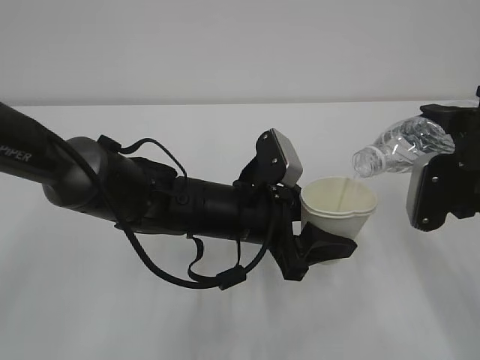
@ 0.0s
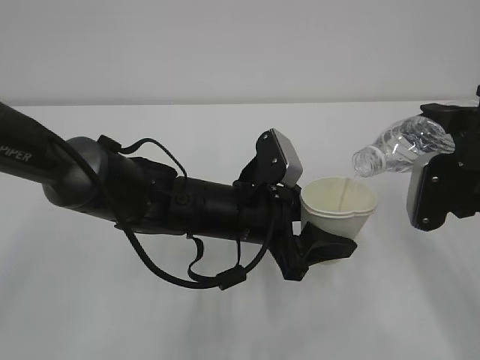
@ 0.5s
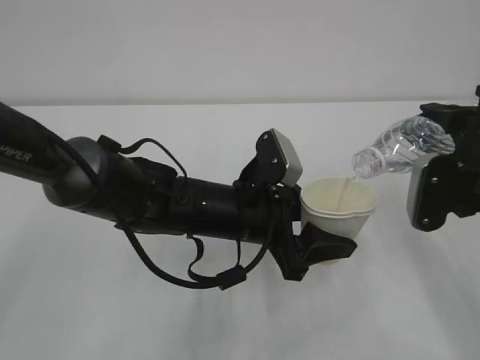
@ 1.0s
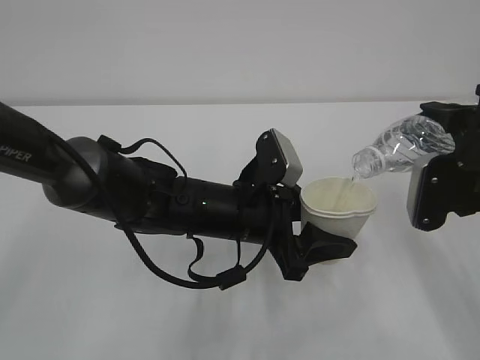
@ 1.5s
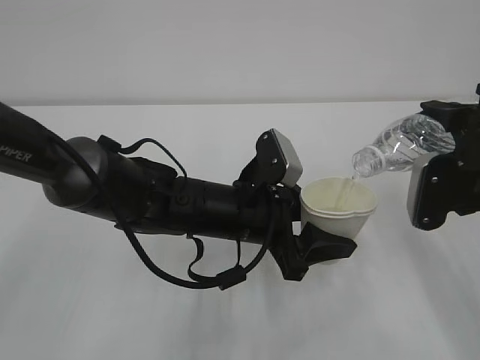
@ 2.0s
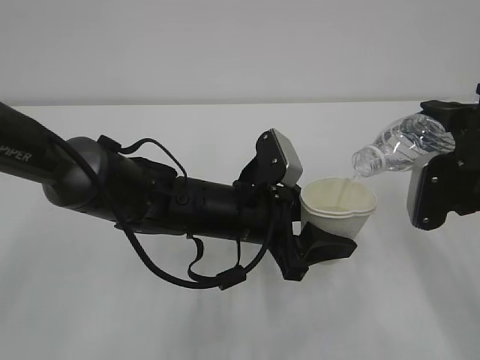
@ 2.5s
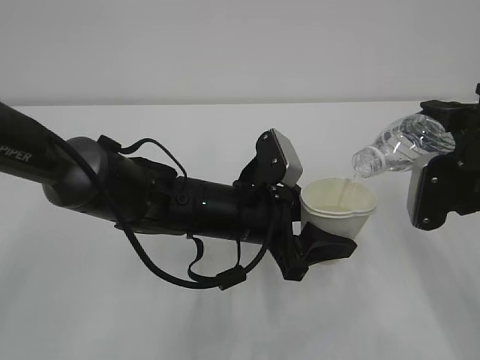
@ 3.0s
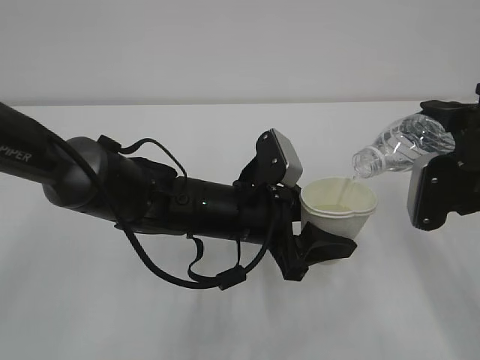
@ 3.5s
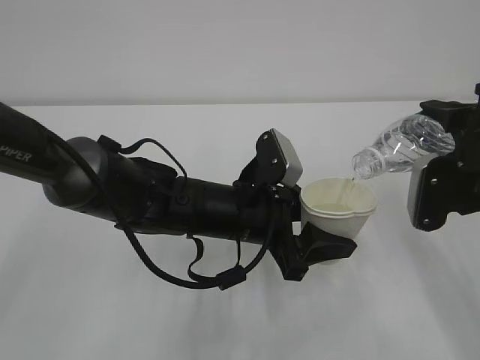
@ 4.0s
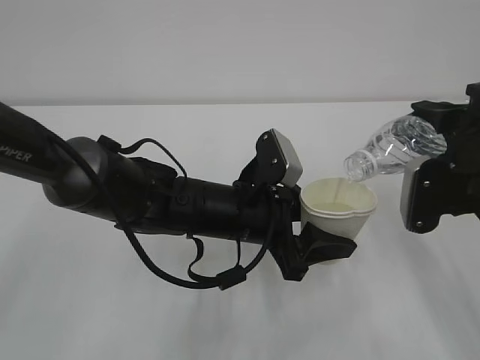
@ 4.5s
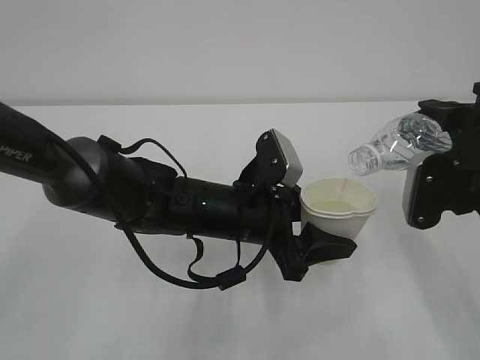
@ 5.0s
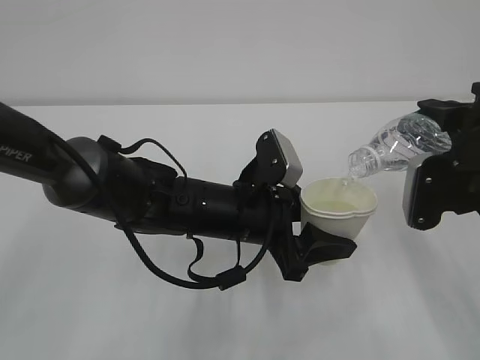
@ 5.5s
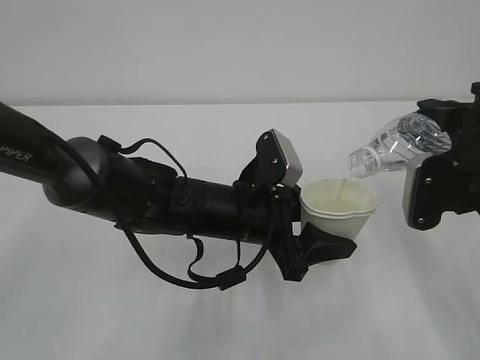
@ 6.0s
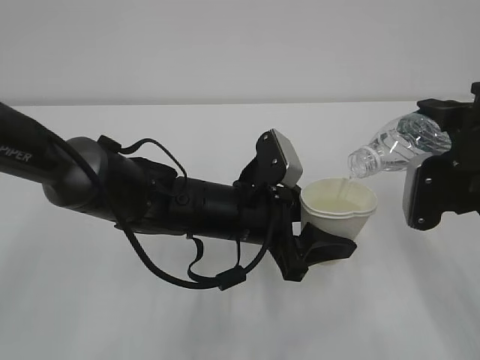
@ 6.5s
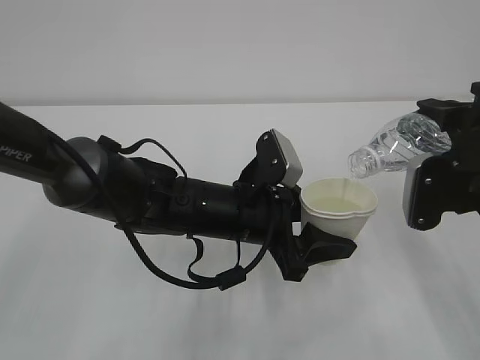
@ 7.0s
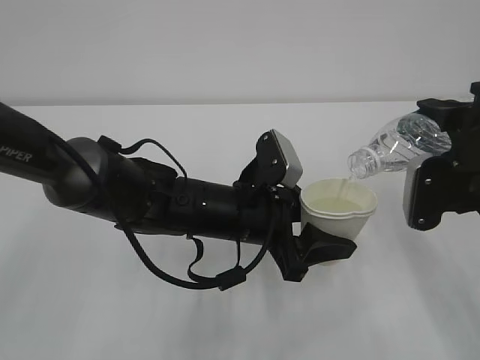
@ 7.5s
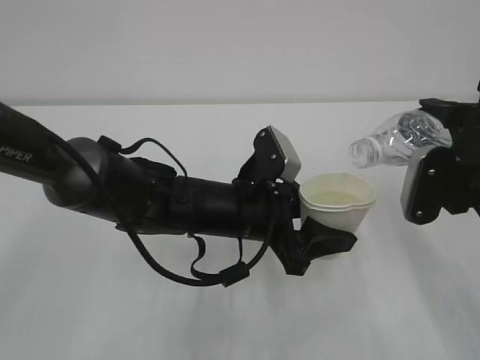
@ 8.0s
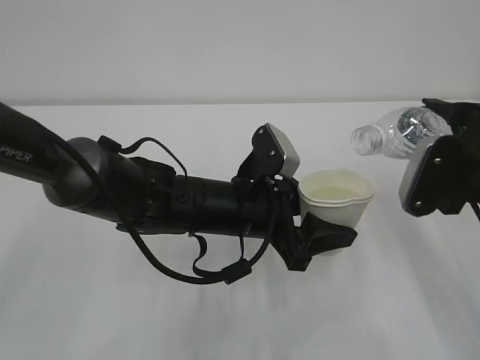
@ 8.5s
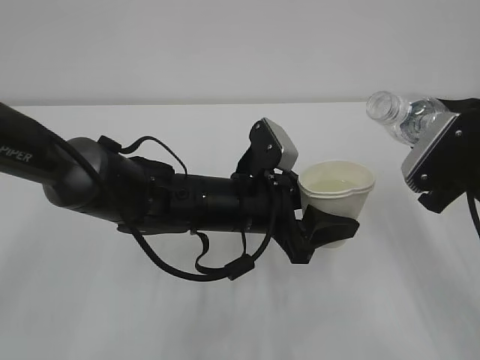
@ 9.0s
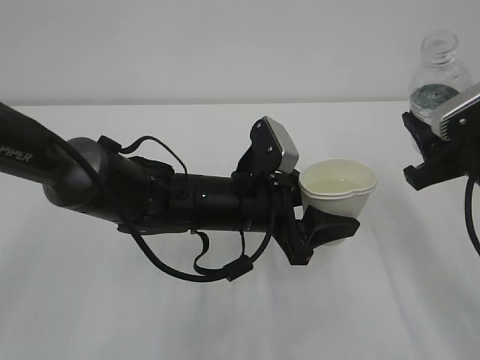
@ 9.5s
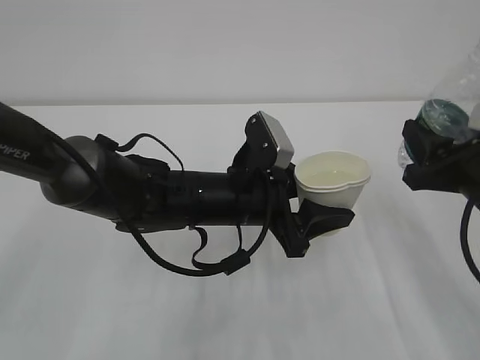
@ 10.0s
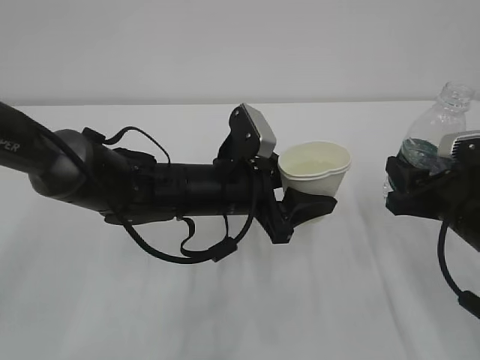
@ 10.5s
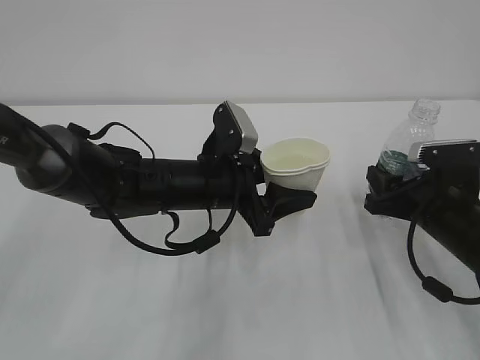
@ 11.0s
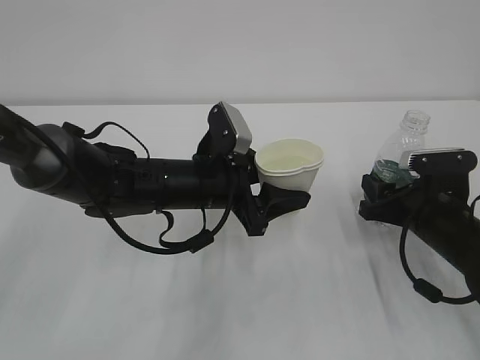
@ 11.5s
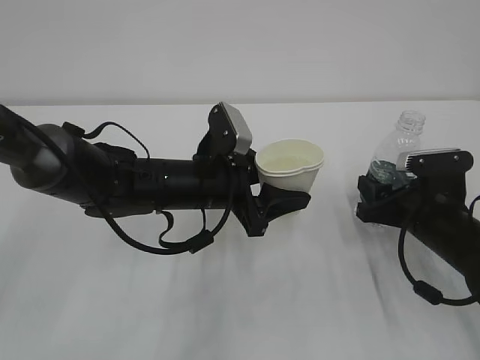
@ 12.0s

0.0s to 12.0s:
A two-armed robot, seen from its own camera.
0.0s to 6.0s: Both grippers stay put.
6.0s to 8.0s: The grippers stay close to where they were, moving slightly.
10.0s to 12.0s: The left gripper moves roughly 5 cm, while the right gripper goes approximately 10 cm downward and forward.

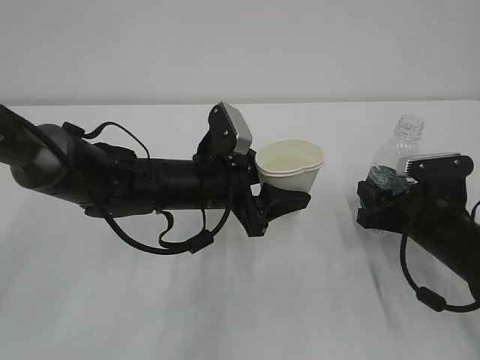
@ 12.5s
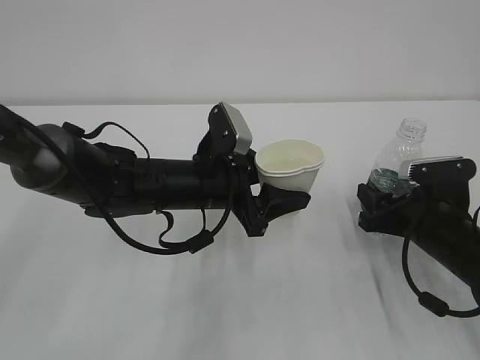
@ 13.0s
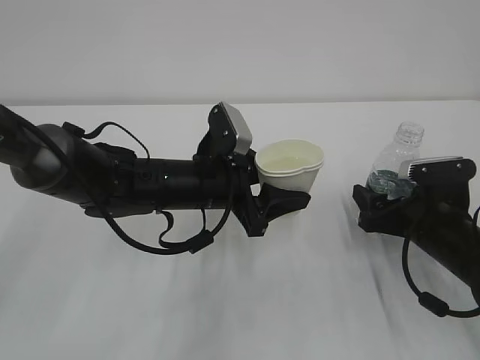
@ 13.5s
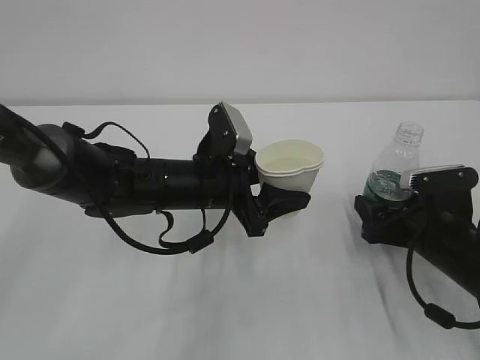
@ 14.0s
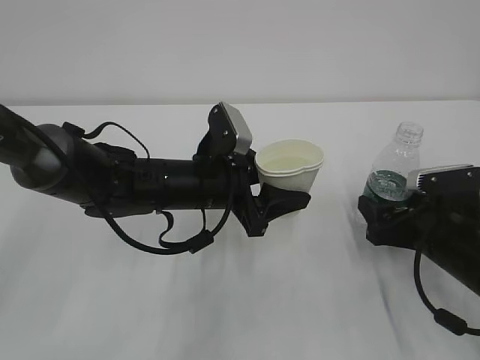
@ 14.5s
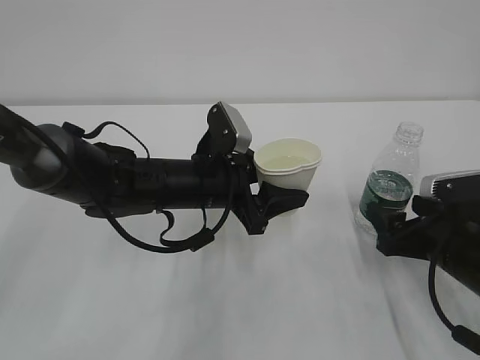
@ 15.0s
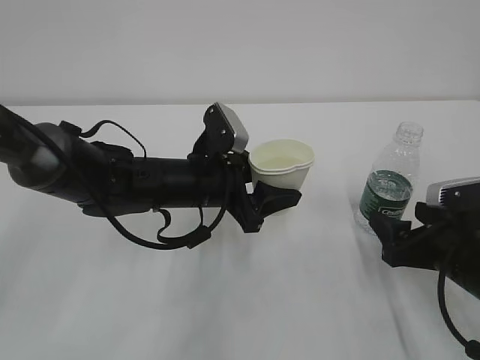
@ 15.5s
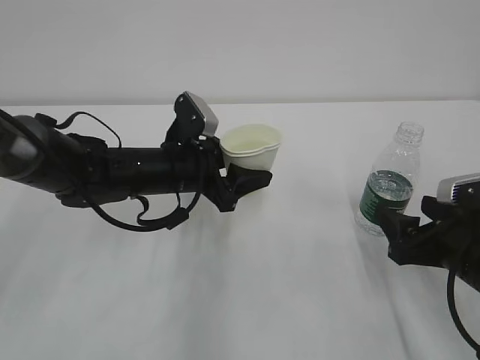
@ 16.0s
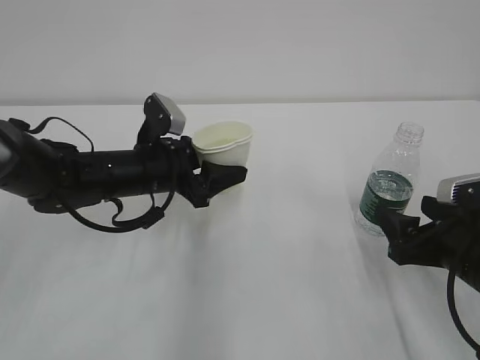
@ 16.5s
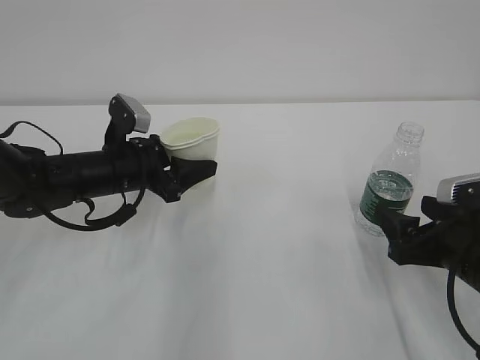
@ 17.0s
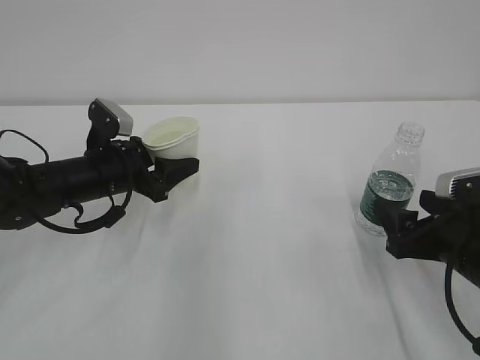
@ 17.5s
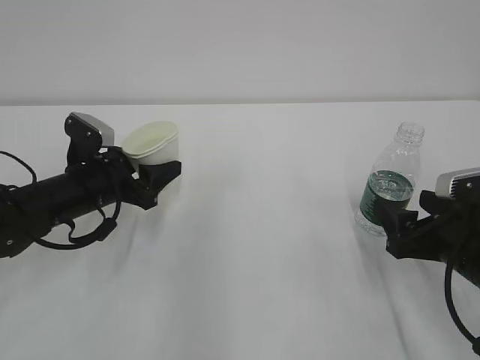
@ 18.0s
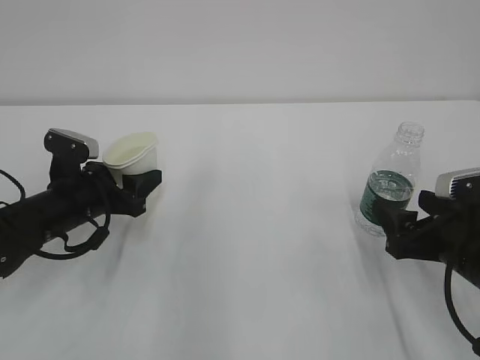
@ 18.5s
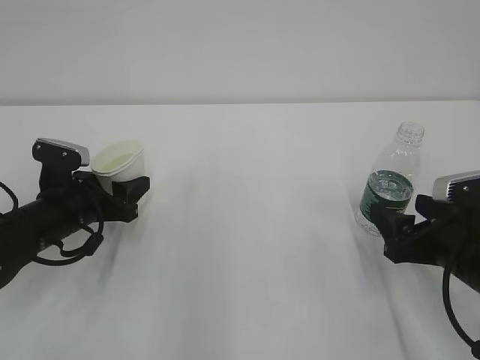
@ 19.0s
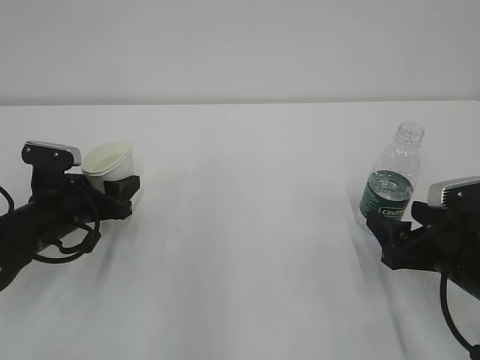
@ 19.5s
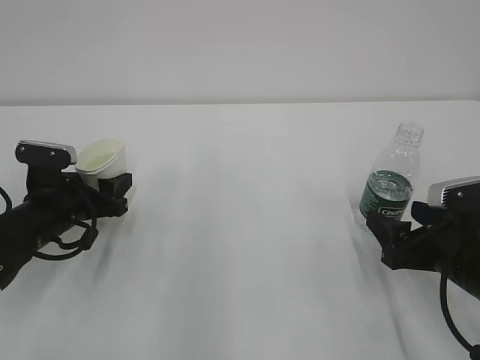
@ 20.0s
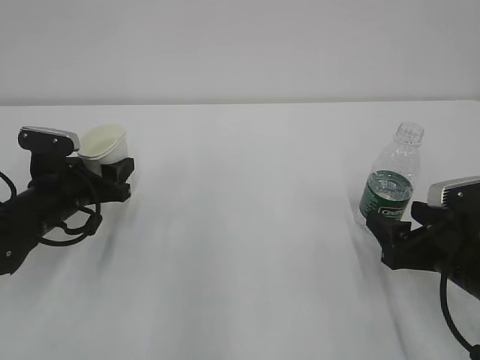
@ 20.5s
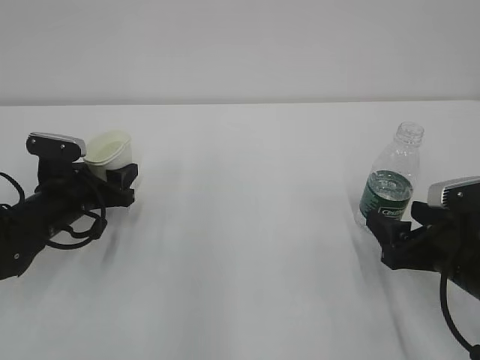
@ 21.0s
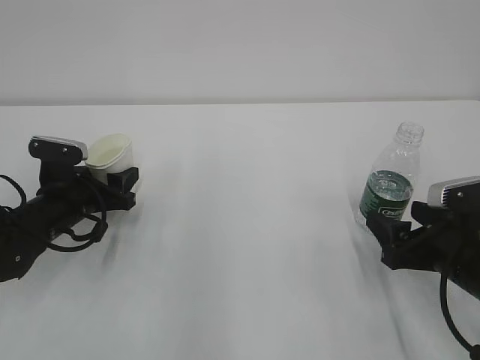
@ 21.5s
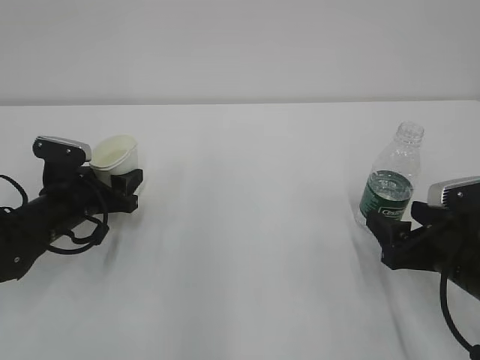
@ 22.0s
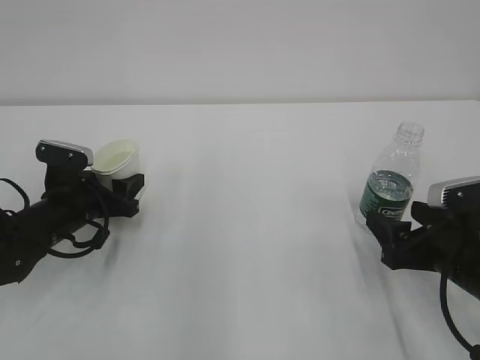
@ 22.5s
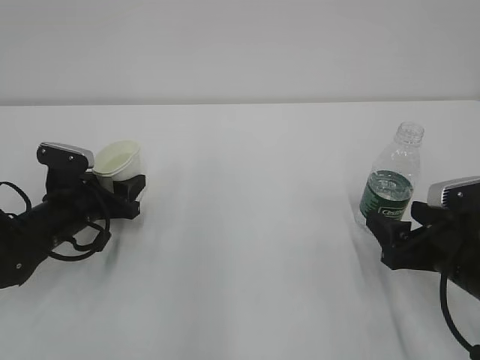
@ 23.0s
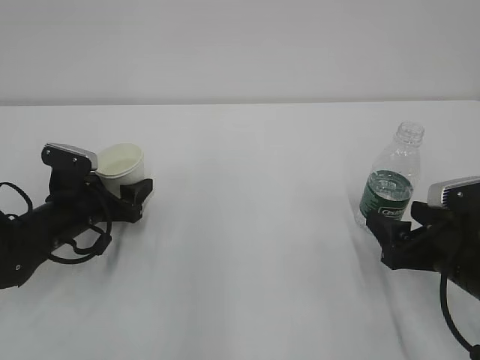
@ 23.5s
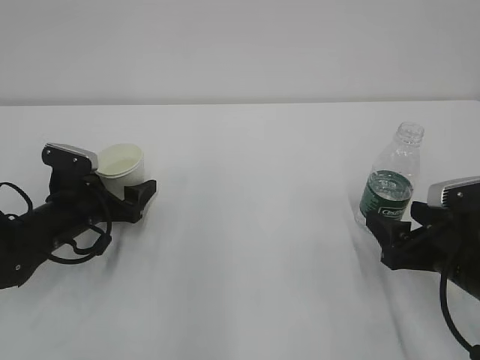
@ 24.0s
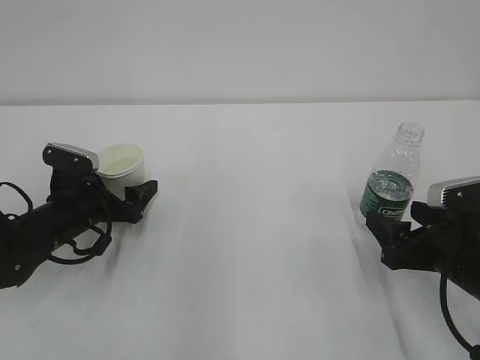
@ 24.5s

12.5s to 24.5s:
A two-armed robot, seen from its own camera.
12.5s to 14.5s: The right gripper opens up.
14.5s to 16.5s: The right gripper changes place by some 5 cm. The left gripper shifts some 10 cm to the left.
16.5s to 18.5s: The left gripper is displaced to the left by some 10 cm.
18.5s to 22.5s: The grippers stay close to where they were, moving slightly.
22.5s to 24.5s: The left gripper opens.

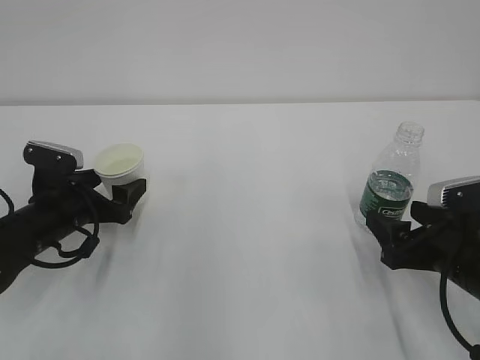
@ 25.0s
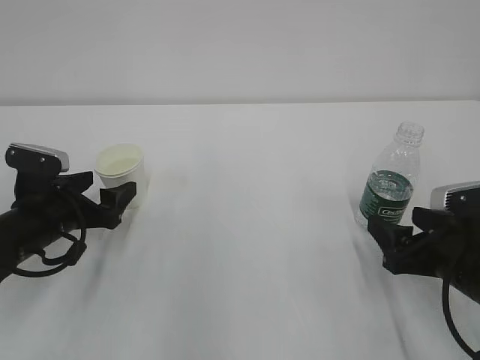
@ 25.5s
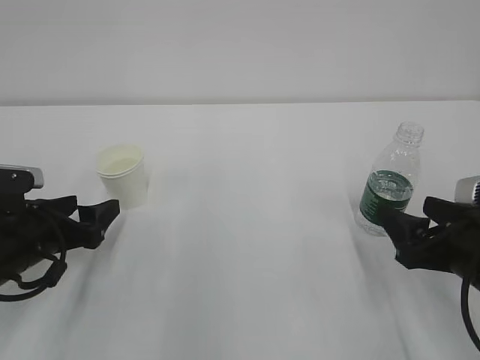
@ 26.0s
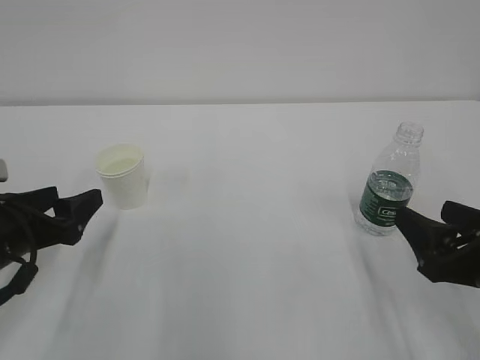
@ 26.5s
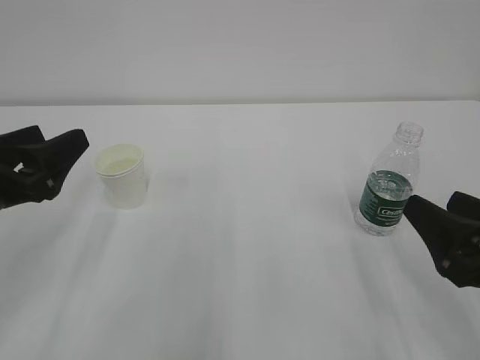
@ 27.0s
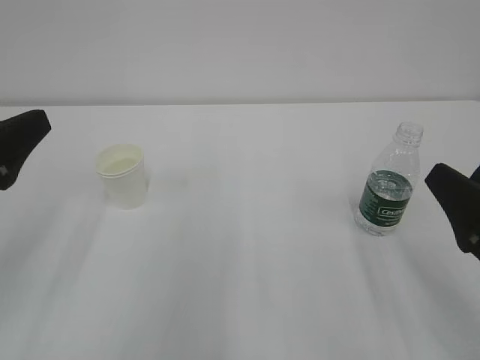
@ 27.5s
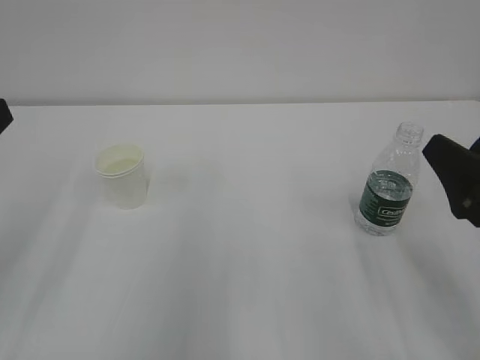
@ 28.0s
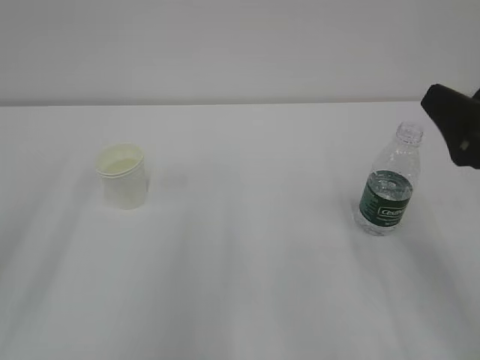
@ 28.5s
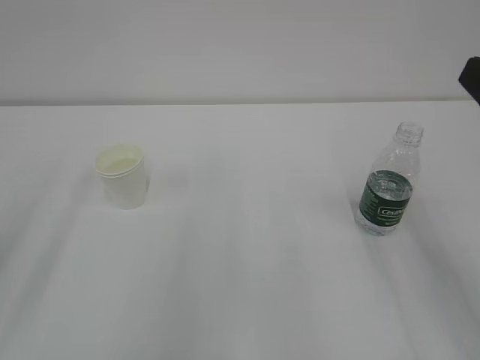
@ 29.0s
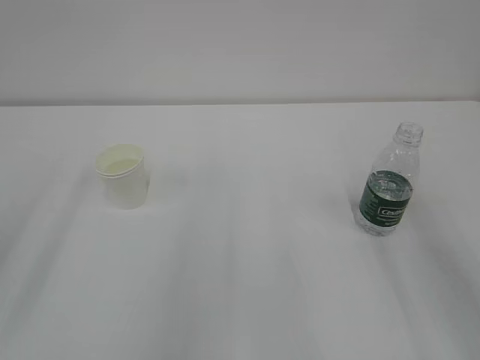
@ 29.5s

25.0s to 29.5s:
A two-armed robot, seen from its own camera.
25.0s to 27.0s: The left gripper heads upward and backward, covering approximately 15 cm; the right gripper moves backward and upward, approximately 10 cm.
27.0s to 29.5s: The left gripper moves upward and backward, roughly 15 cm; the right gripper goes roughly 15 cm upward.
